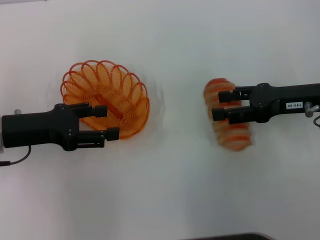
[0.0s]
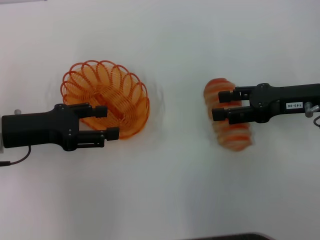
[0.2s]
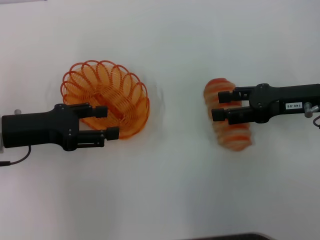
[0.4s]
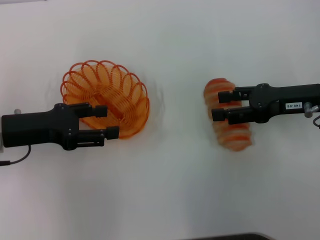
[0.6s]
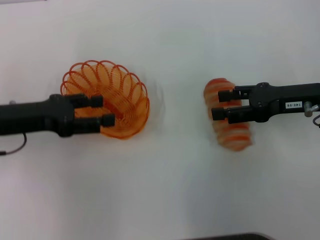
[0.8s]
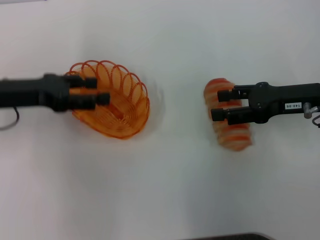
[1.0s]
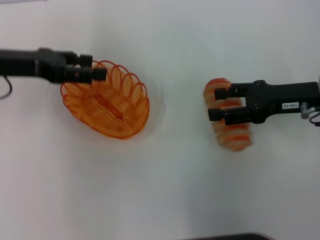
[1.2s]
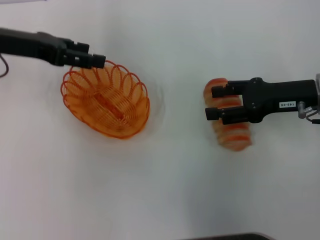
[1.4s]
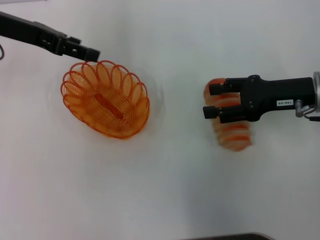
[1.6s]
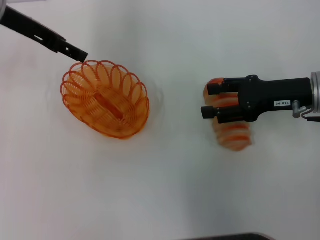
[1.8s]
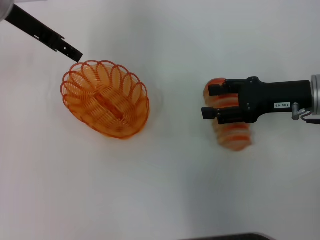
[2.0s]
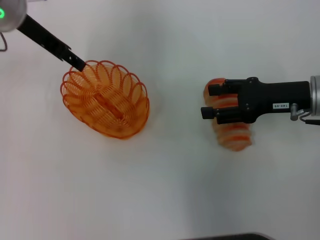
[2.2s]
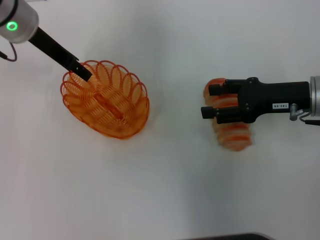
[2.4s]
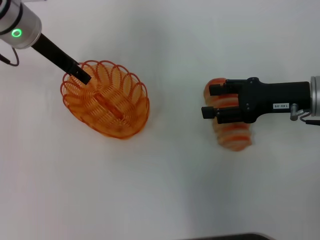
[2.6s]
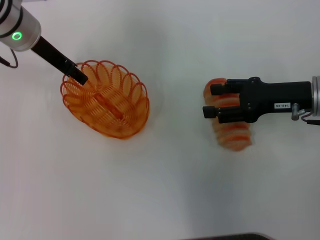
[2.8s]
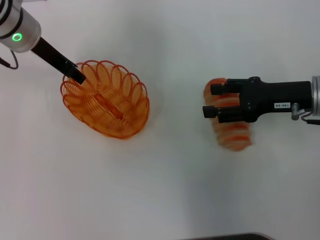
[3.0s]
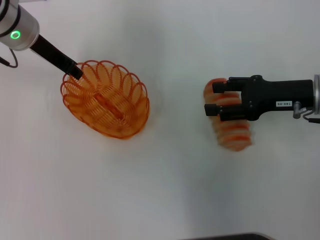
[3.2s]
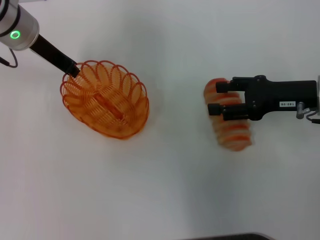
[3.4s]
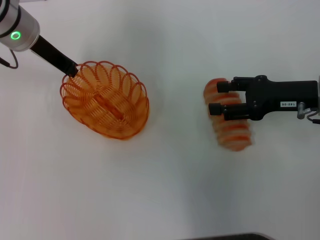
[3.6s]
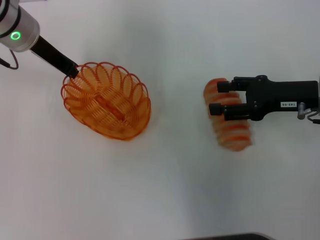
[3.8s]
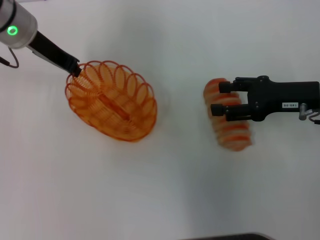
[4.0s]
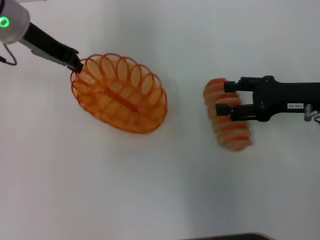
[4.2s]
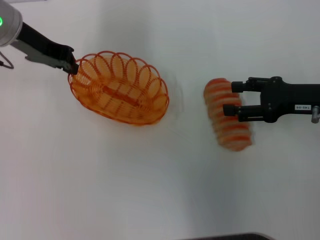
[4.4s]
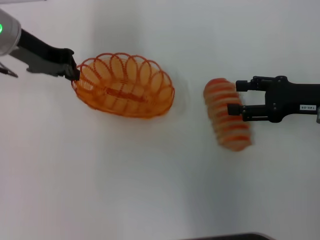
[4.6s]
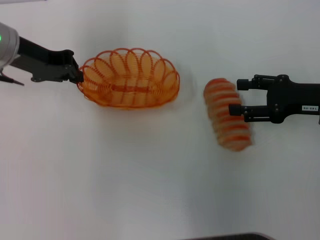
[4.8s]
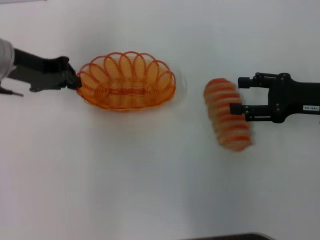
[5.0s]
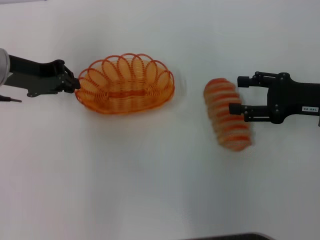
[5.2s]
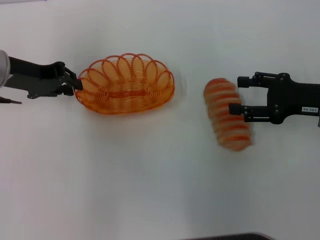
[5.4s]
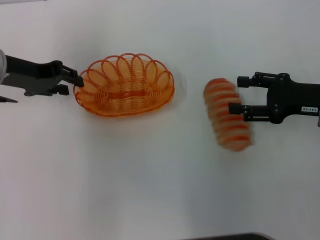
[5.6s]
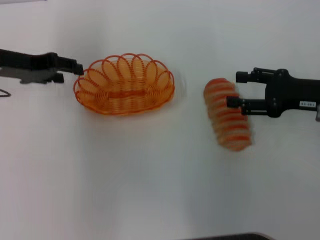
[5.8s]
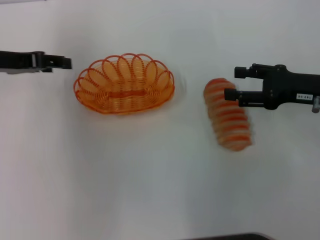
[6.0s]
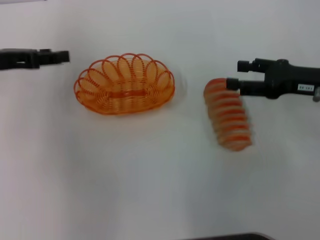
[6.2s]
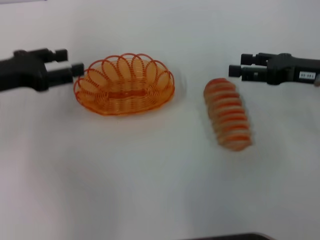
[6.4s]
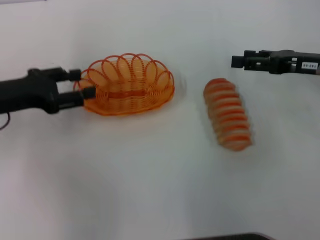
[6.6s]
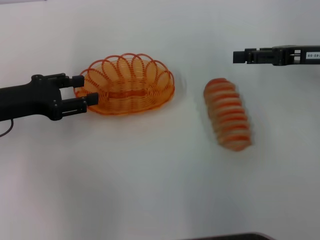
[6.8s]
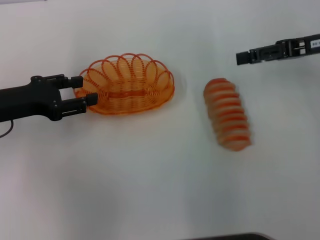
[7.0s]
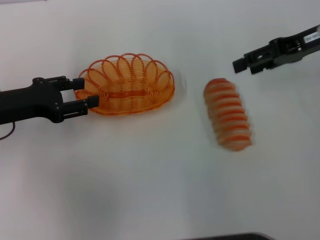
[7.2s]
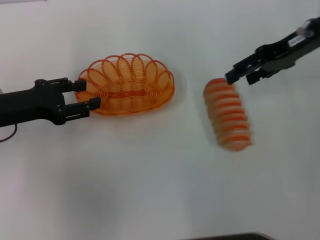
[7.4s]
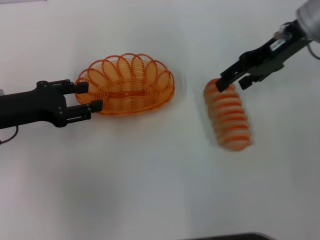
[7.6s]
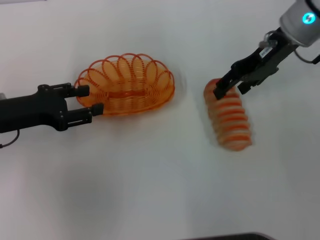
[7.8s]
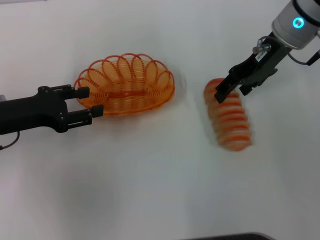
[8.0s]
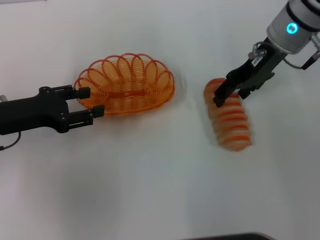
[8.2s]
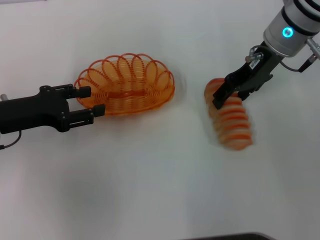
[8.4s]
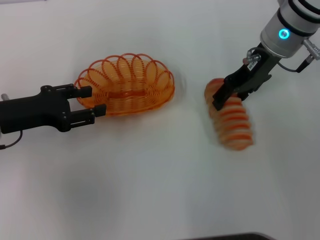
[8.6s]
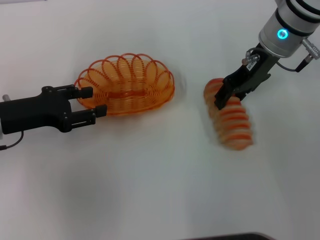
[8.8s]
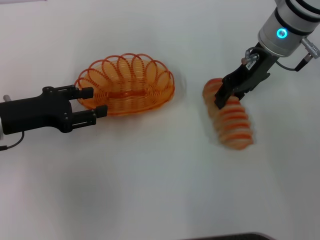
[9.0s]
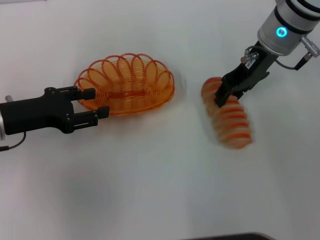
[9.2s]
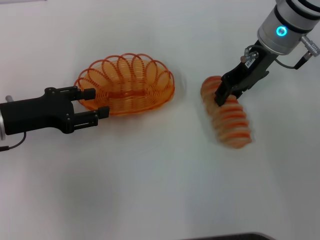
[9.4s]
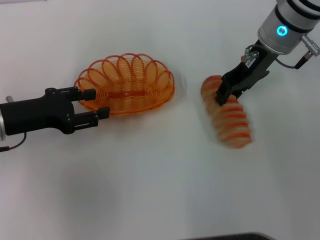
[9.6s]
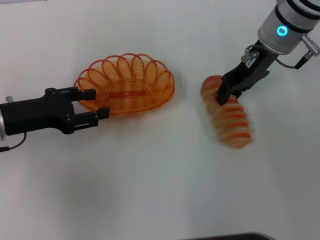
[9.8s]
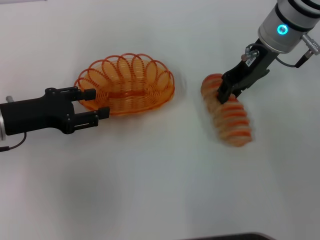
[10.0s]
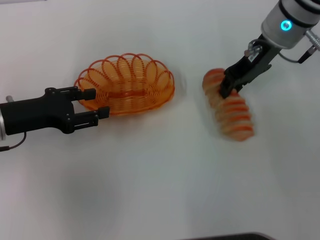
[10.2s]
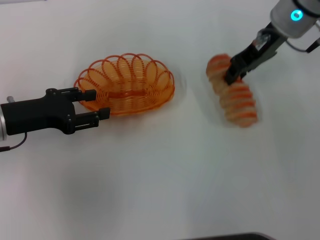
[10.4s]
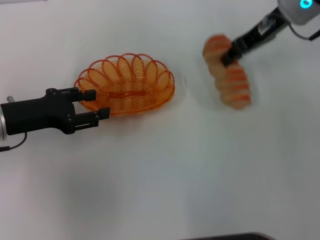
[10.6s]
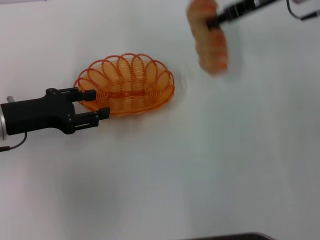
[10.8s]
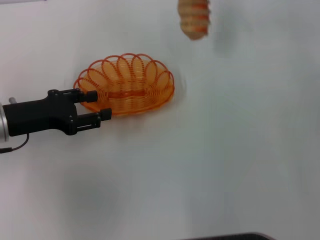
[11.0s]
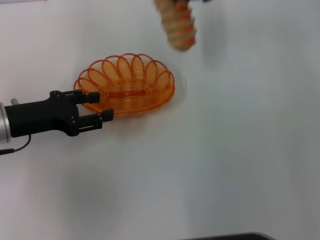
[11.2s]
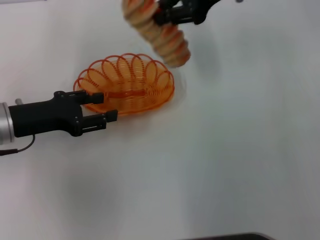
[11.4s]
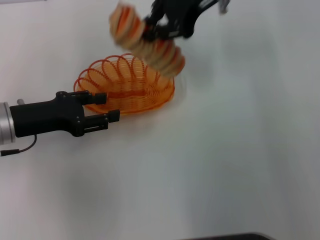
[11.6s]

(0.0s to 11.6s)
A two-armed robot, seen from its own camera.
Step, 0.0s - 4.2s: Pick up the basket with the left gripper.
Step, 4.4s - 6.0s: Place the basket in the center of view with the left gripper.
Step, 6.2s - 10.4s: Pick up the long bread with the right gripper.
0.0s - 1.4s: The left gripper travels upward and forward by roughly 15 cm.
1.4s - 2.8s: The left gripper shifts about 5 cm to the right.
2.8s - 4.4s: The left gripper closes.
4.4s - 5.8s: The left gripper ends up roughly 10 cm from where it was, and opens.
5.8s - 7.2s: The right gripper goes roughly 15 cm upward and forward. Meanwhile the left gripper goes about 5 cm backward.
7.2s - 8.8s: The right gripper heads to the left, covering some 10 cm.
8.8s - 10.2s: The right gripper closes.
10.2s - 11.6s: The right gripper is displaced upward and to the left by about 10 cm.

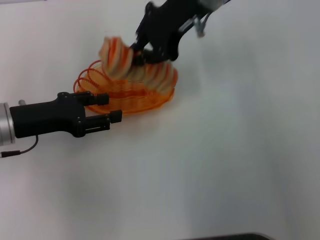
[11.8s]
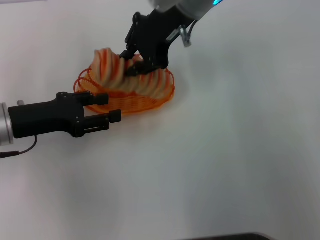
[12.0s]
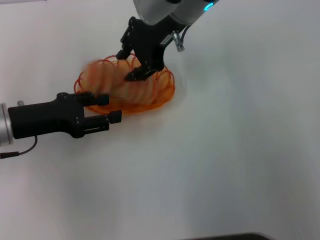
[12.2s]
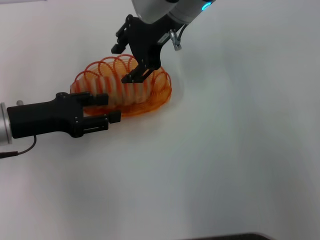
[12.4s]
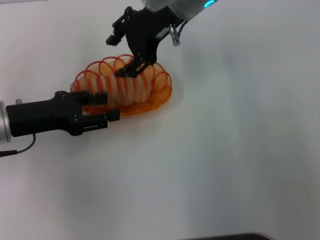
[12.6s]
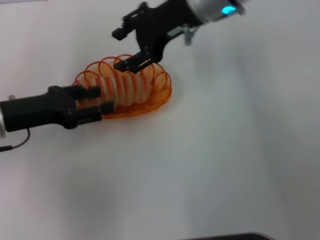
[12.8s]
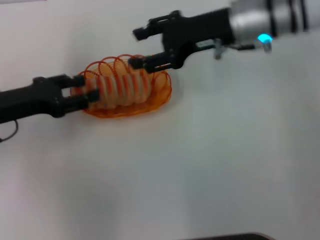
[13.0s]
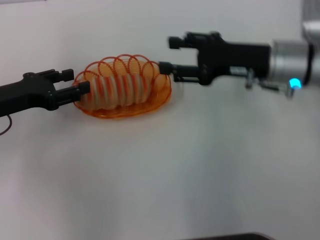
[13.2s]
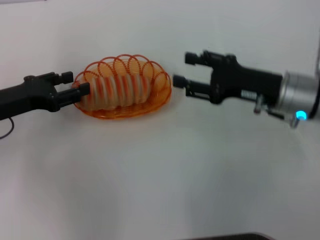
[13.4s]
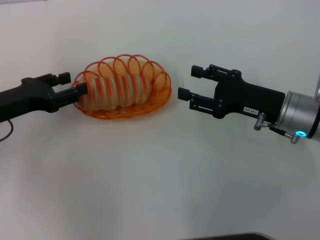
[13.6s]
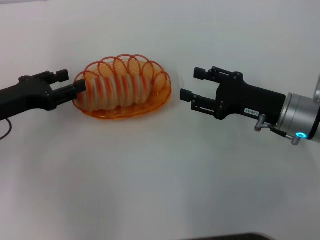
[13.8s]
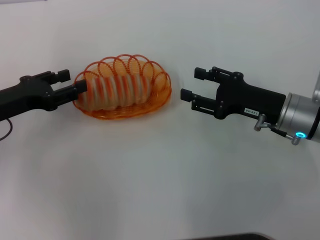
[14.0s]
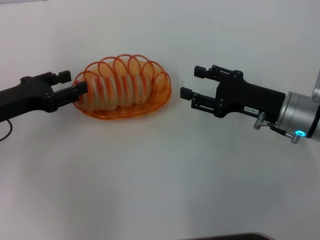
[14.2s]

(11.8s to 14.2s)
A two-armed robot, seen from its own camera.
11.8s - 13.0s: The right gripper goes some 10 cm to the right and downward, and opens.
13.0s - 14.2s: The right gripper moves downward, backward and to the right, roughly 15 cm.

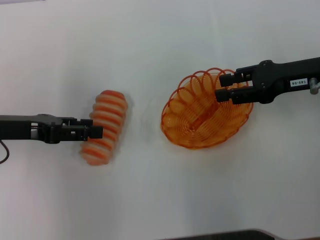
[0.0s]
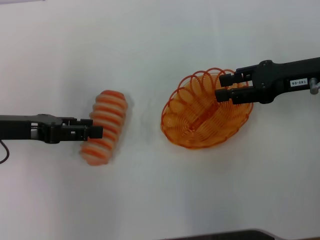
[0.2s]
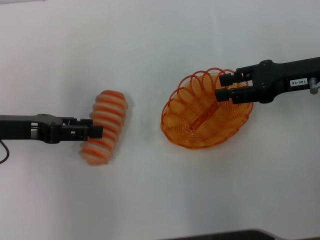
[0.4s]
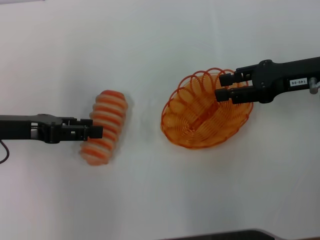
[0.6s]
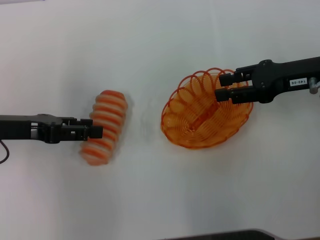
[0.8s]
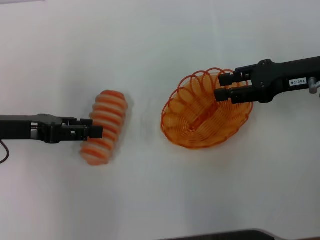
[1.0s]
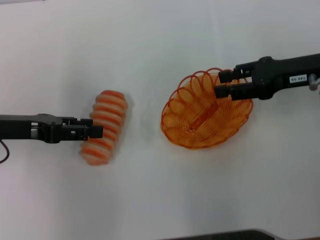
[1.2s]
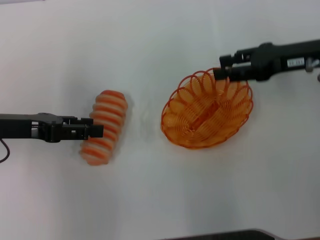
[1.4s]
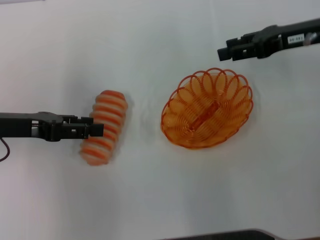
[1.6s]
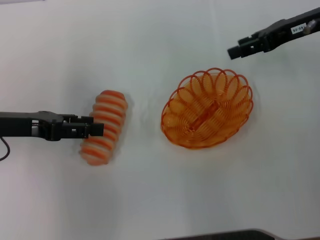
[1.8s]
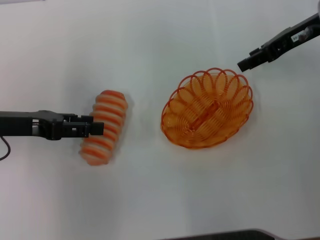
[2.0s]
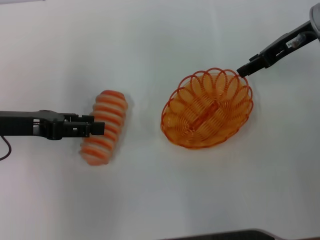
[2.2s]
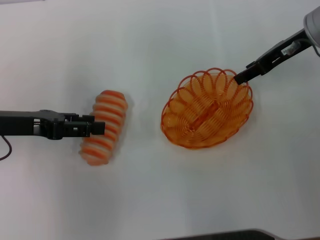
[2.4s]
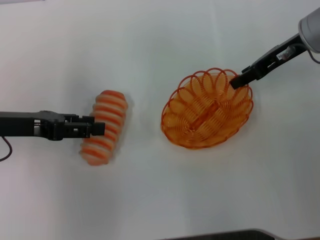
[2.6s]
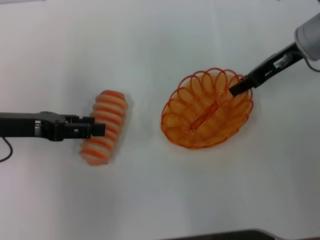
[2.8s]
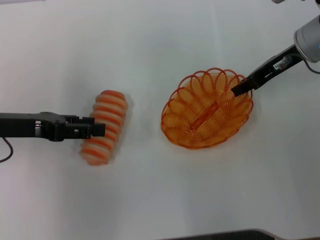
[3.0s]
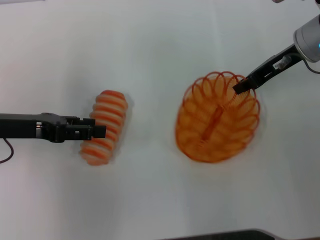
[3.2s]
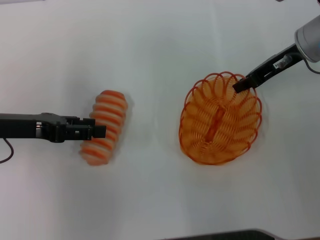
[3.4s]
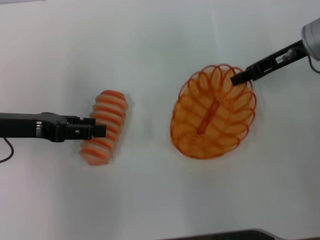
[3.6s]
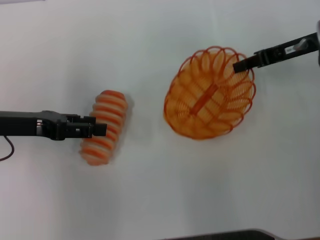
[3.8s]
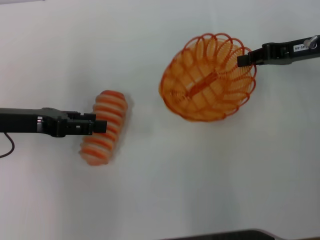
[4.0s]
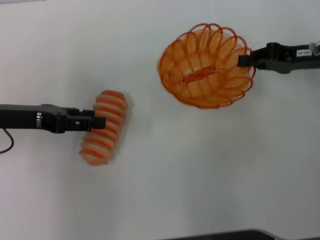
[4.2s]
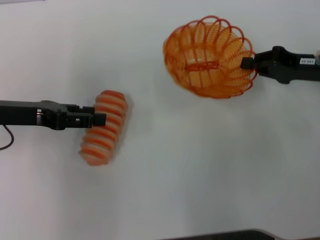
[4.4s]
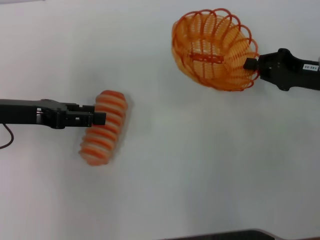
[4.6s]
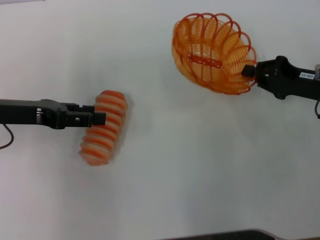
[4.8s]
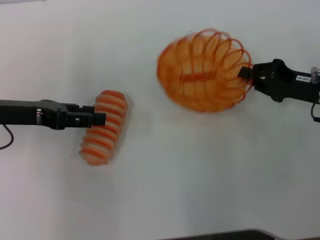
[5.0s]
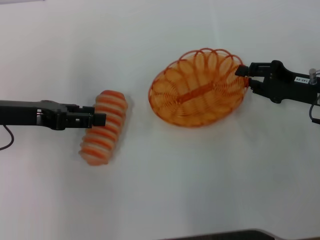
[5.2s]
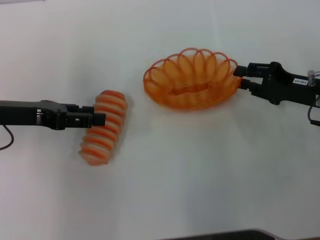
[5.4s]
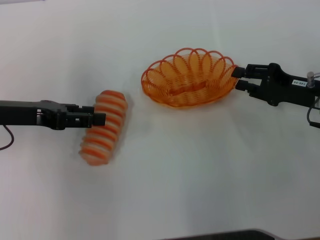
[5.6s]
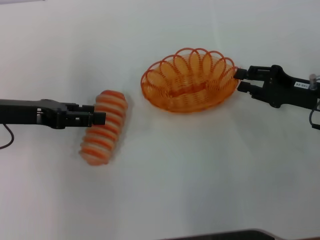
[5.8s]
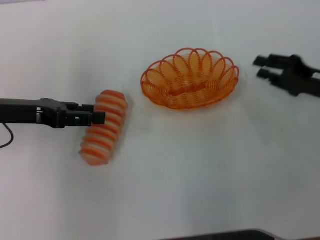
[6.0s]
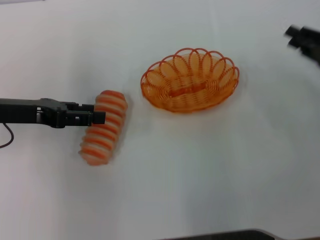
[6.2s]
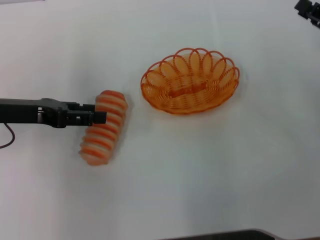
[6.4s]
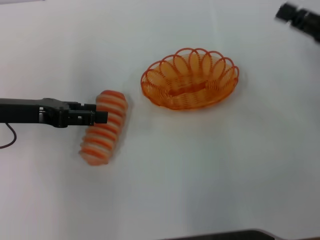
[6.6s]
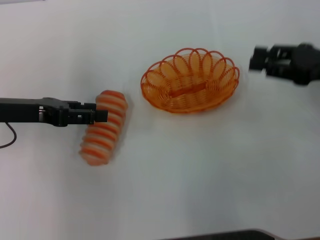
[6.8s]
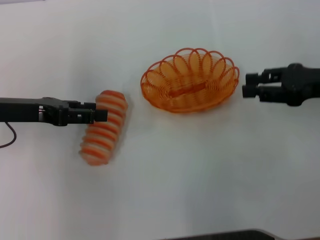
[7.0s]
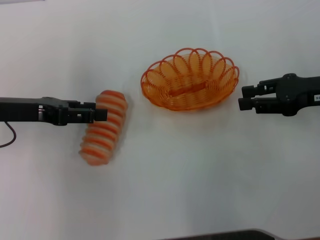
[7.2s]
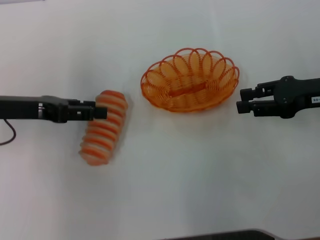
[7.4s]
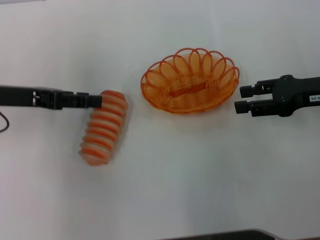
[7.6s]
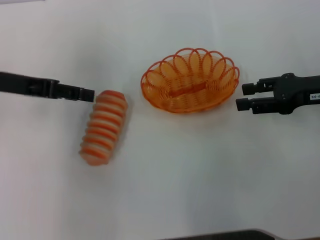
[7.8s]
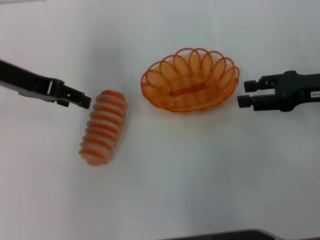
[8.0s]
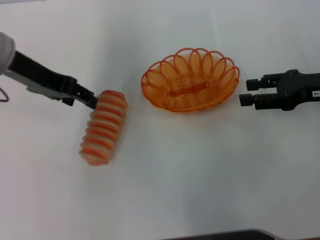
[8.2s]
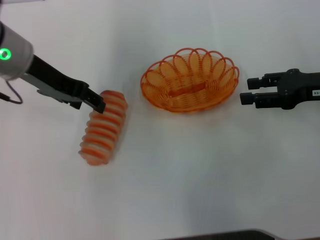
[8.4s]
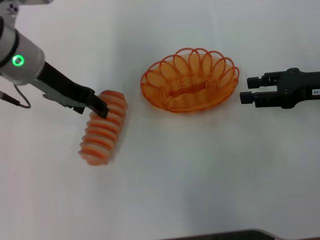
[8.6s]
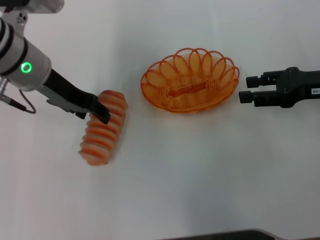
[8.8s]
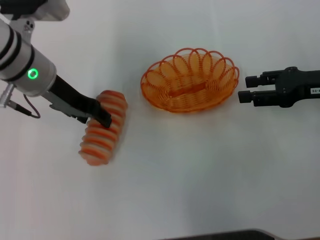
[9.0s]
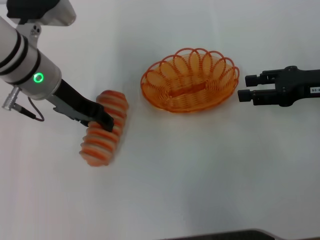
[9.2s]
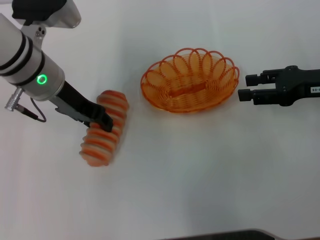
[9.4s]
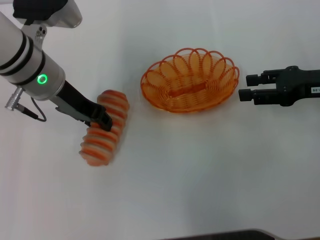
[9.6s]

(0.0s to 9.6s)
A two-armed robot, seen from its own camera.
Step, 0.0s - 3.8s: Pick up the basket with the right gripper.
Step, 4.0s - 5.8s: Place the basket in the center of view with the right gripper.
0.0s - 1.6s: The right gripper ends up about 5 cm from where it was.
1.6s - 3.2s: The right gripper closes.
3.2s - 4.8s: The right gripper moves backward, downward and to the right, approximately 15 cm, and closes up.
4.8s - 6.4s: The right gripper shifts by some 5 cm, and opens up.
6.4s - 8.0s: The left gripper shifts approximately 5 cm upward.
8.0s - 9.6s: The left gripper goes some 10 cm to the right.
